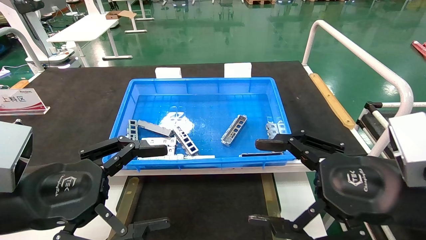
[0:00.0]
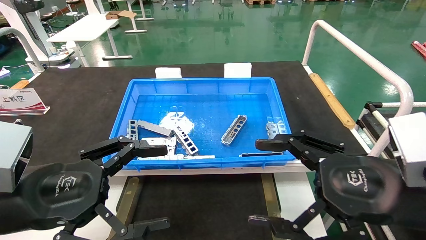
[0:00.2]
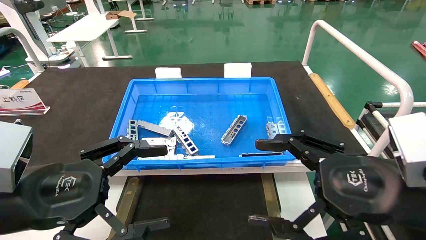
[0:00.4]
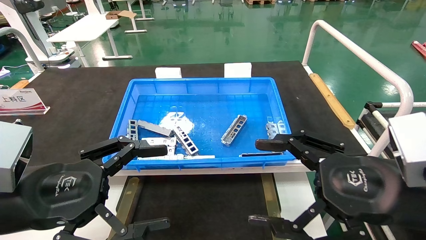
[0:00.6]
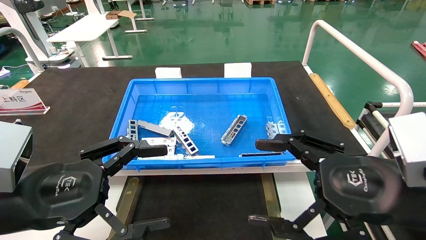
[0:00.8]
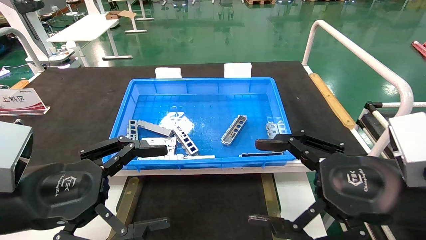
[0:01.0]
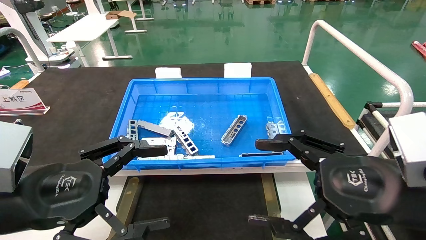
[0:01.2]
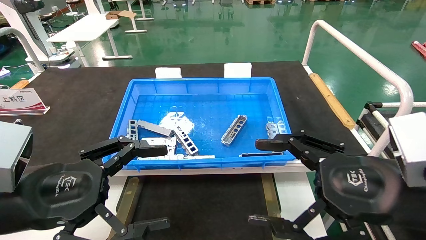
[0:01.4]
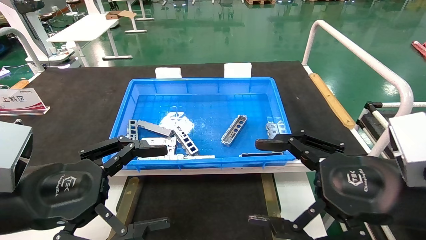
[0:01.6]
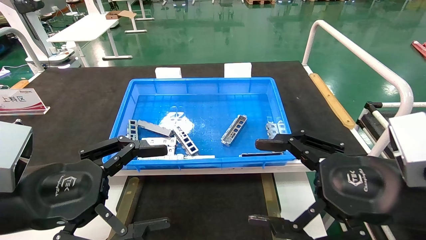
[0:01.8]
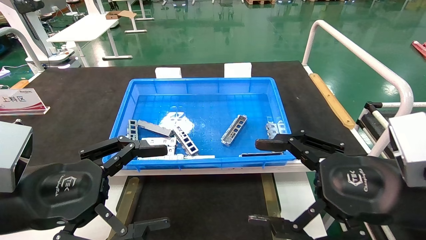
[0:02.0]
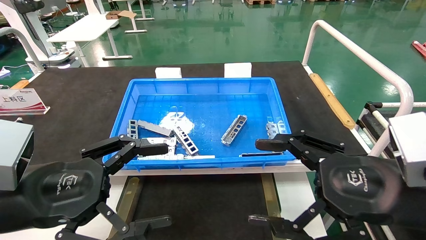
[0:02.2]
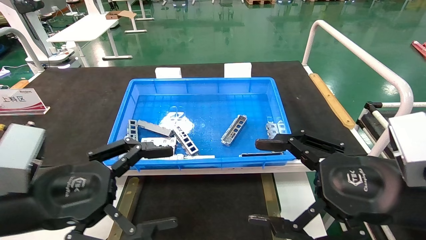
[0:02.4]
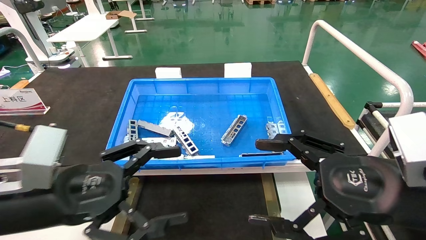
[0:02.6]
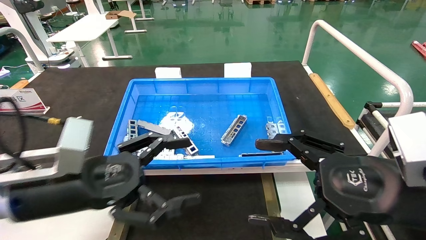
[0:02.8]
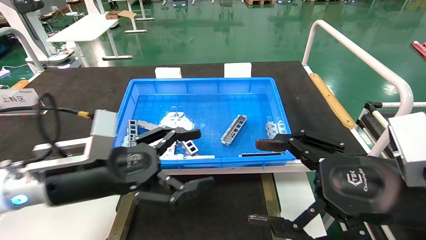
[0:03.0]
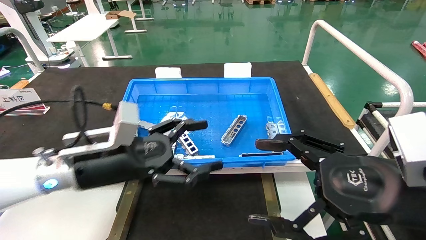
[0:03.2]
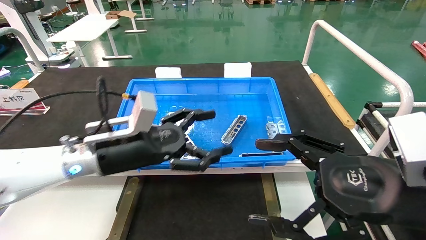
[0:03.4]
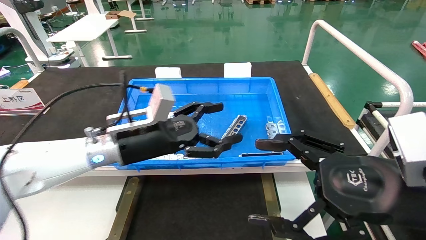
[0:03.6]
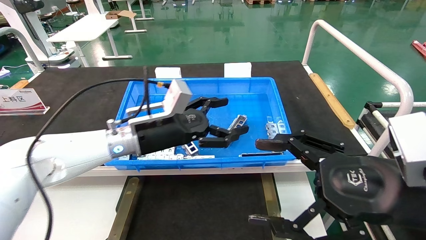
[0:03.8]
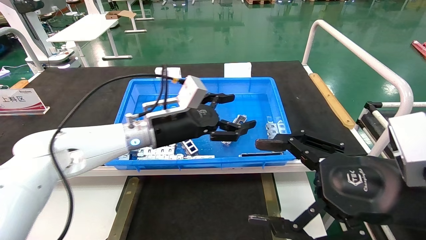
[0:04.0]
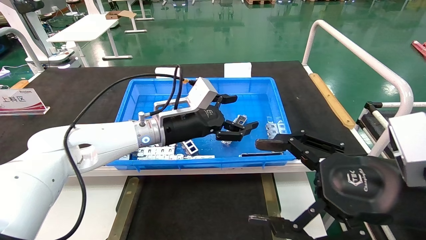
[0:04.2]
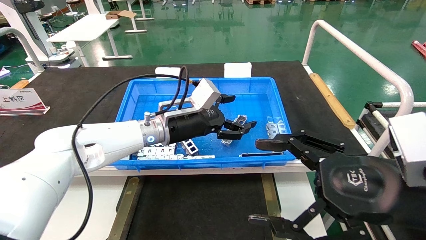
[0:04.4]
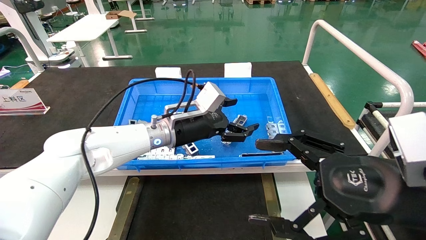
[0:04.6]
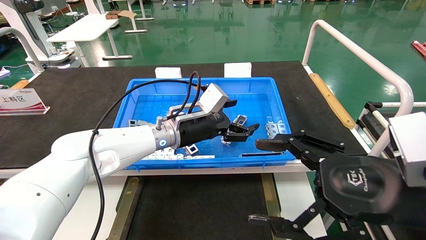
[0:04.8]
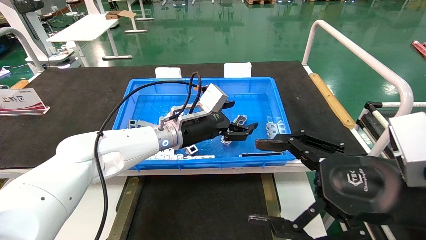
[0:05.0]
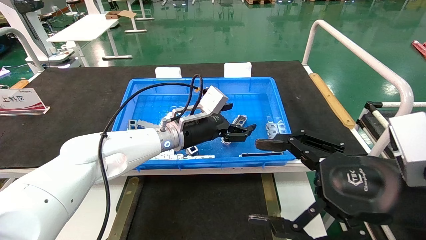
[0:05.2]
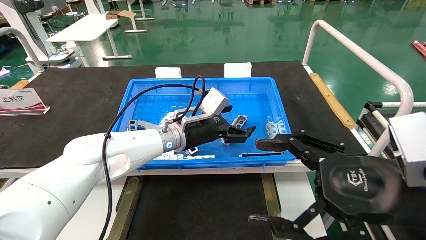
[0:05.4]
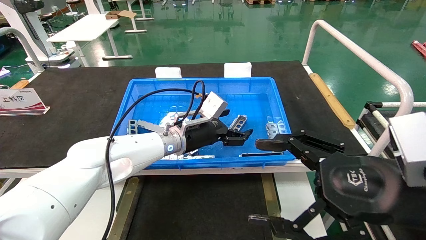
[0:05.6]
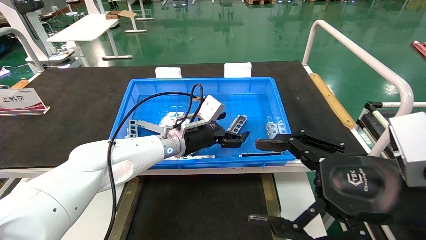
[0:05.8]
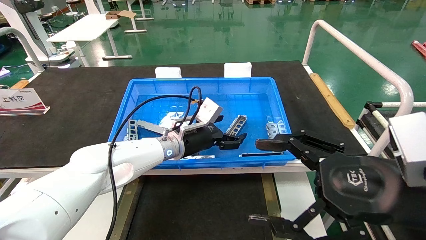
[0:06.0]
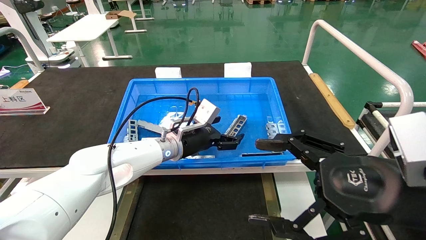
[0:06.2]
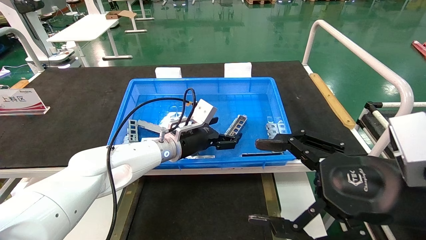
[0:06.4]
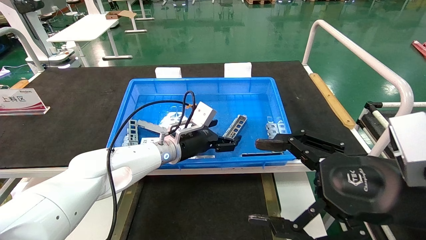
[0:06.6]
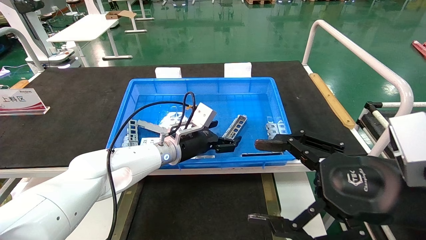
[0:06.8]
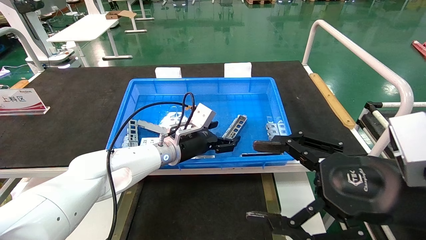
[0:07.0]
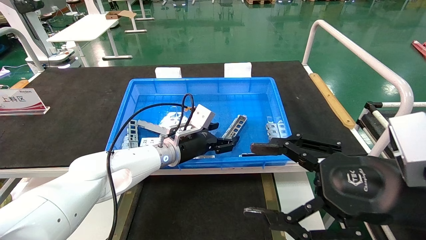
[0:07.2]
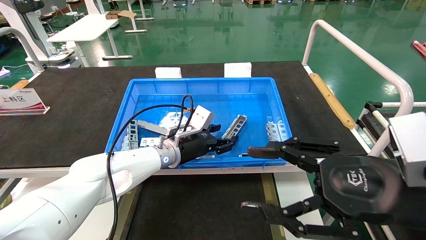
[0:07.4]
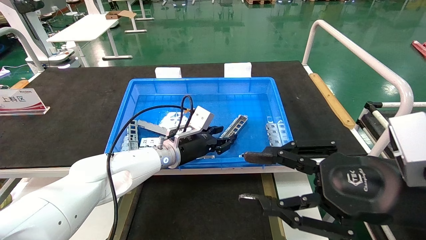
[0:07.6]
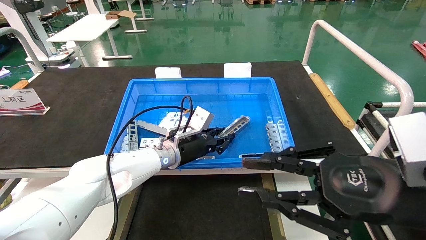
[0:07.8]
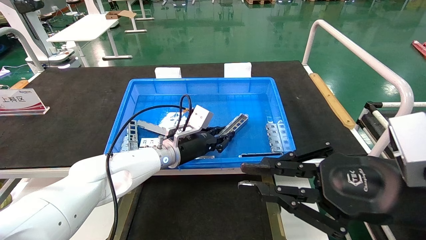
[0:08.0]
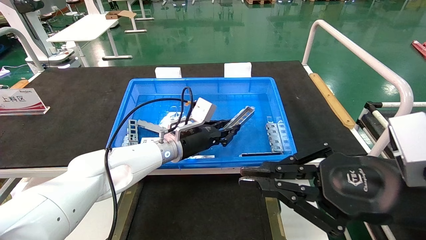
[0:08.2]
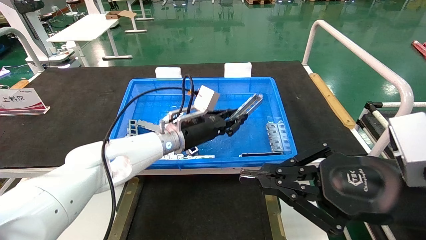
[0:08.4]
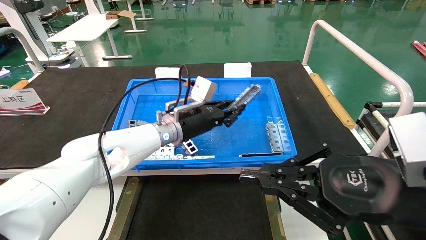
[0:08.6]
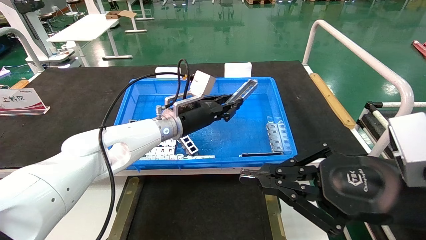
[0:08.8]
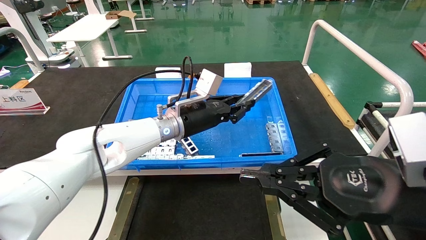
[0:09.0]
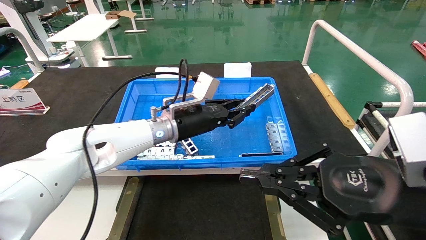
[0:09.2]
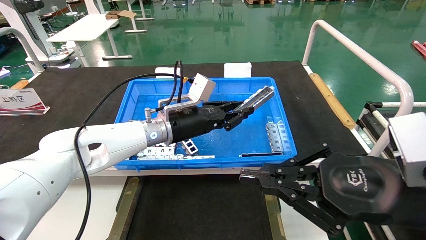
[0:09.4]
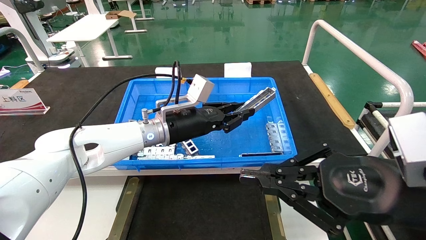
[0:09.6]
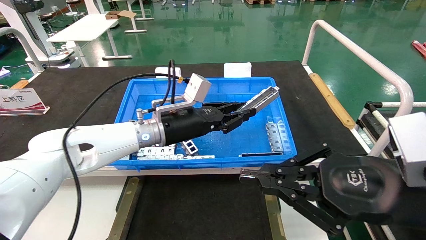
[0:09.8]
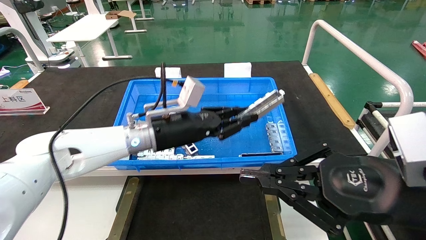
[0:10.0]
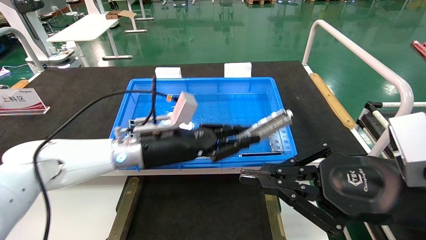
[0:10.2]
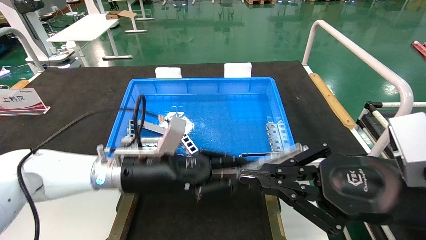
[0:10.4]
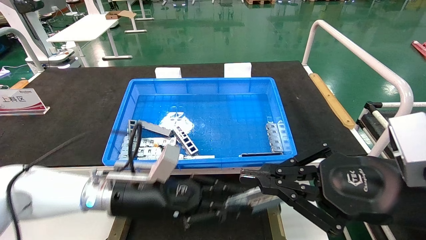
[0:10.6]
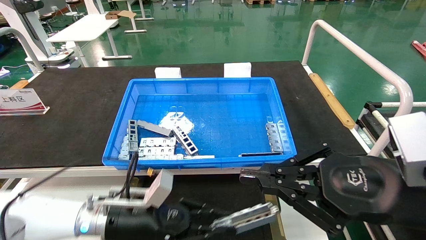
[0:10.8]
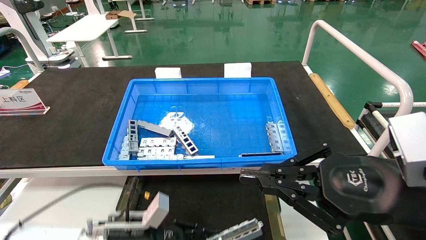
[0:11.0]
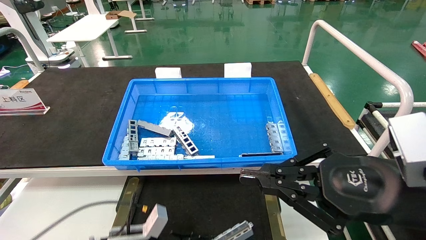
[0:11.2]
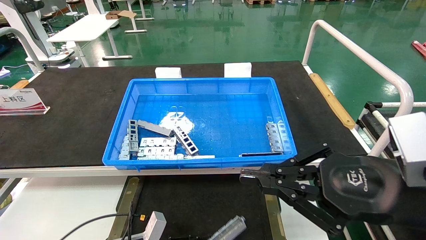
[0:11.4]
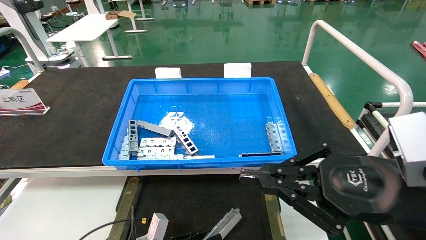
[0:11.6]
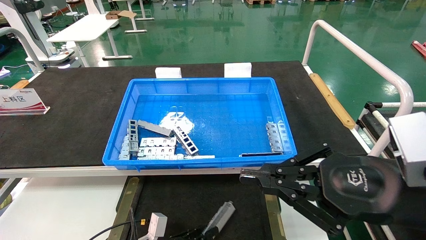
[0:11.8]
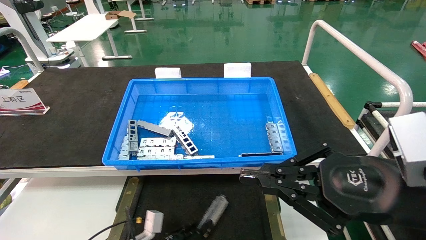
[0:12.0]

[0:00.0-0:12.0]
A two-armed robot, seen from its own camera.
Task of the whole recording: Grasp the part with one hand and place it on the black container.
Step, 0:02.6 to 0:08.0: Pick up the front USB bracket from the feeding area.
0:00.0 to 0:01.6: Neither gripper changes place.
0:01.6 to 0:03.0: The left gripper shifts roughly 10 cm forward.
0:03.0 to 0:04.4: The left gripper moves forward and to the right, approximately 20 cm.
0:04.4 to 0:06.0: The left gripper goes about 5 cm downward.
0:06.0 to 0:07.6: The left gripper closes up. The right gripper closes.
0:07.6 to 0:09.0: The right gripper closes its fingers, while the left gripper goes approximately 10 cm upward, and closes.
0:09.0 to 0:10.4: The left gripper travels backward, to the left and downward by approximately 15 cm.
0:10.4 to 0:12.0: The left gripper goes roughly 25 cm downward.

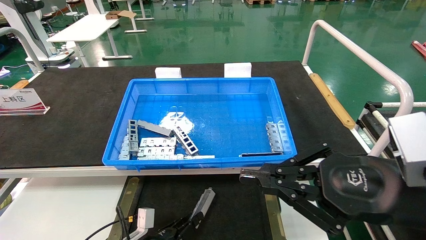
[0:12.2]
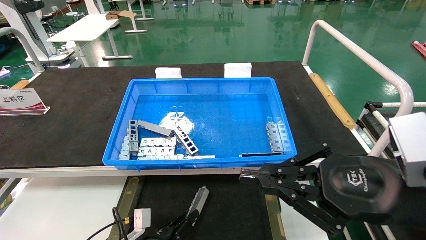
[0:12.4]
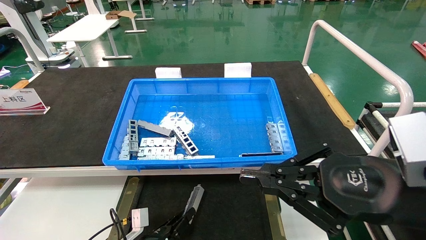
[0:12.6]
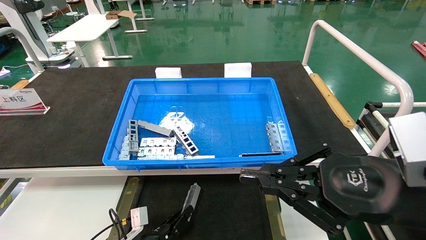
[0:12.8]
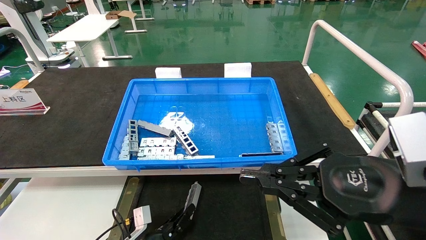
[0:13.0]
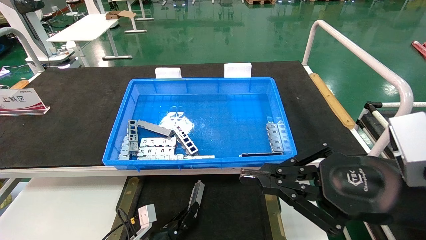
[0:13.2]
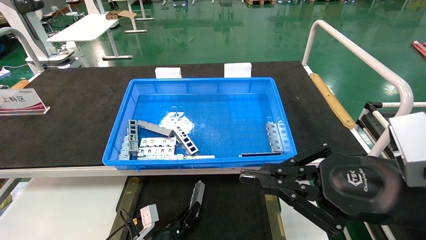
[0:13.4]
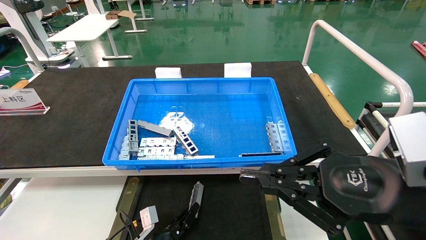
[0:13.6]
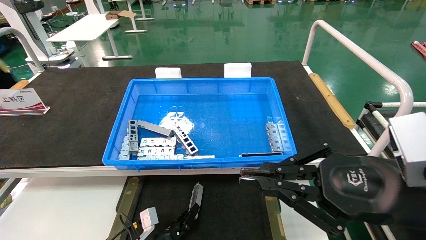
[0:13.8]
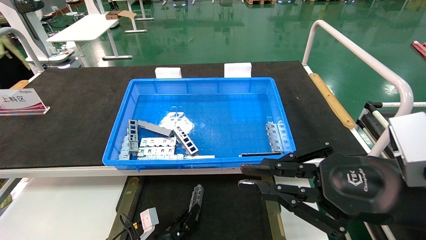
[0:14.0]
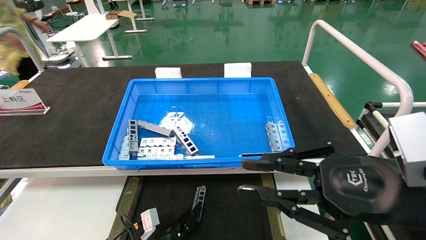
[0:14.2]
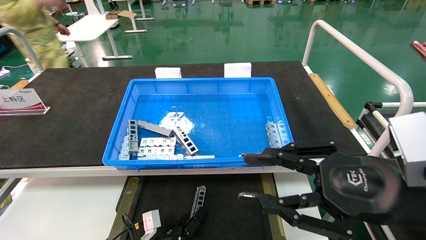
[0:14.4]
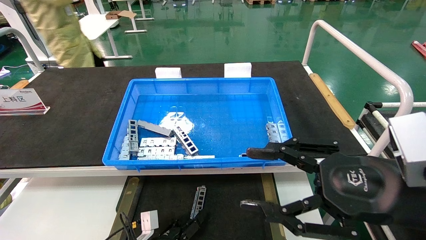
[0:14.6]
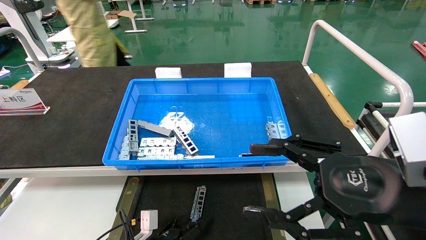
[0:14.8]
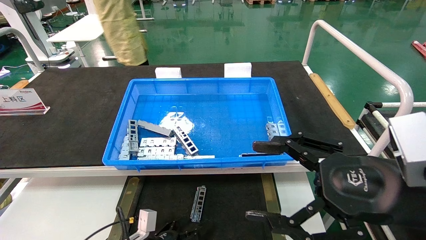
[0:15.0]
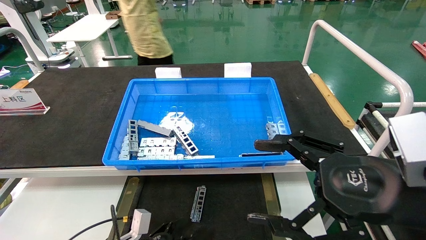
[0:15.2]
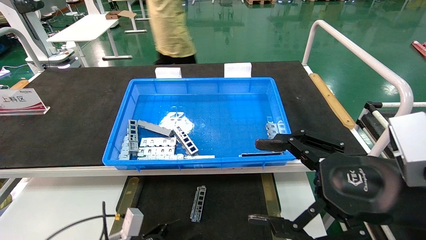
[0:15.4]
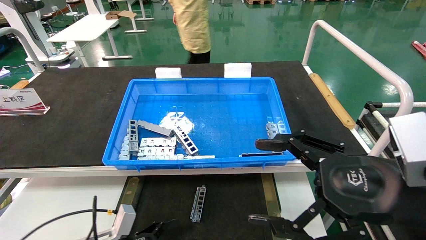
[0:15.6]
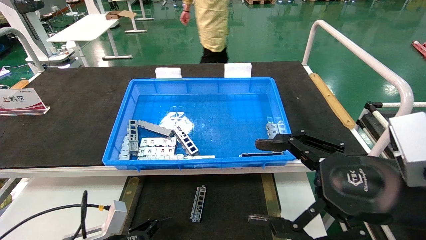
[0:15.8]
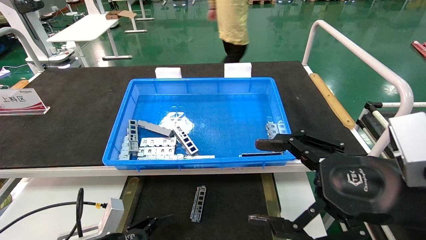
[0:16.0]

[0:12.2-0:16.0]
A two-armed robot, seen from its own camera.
Task of the whole recording: Grasp the part with one hand and place it on the black container.
Step, 0:12.2 to 0:14.4: Place the front USB bracket into the box.
0:12.2 to 0:13.4: The grippers make only small movements.
0:13.4 to 0:14.8: The left gripper opens; the right gripper opens its fingers.
0:14.8 to 0:16.0: The left gripper moves upward, to the left and backward, some 15 cm, while the right gripper opens up.
